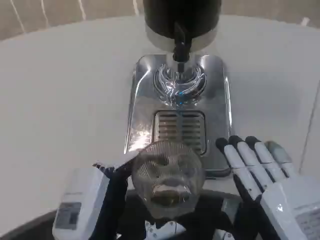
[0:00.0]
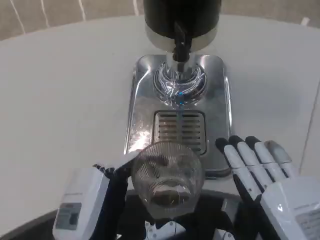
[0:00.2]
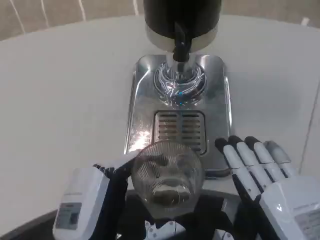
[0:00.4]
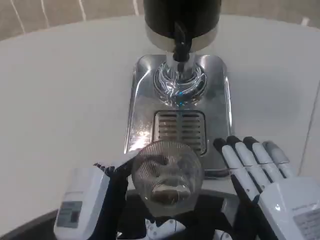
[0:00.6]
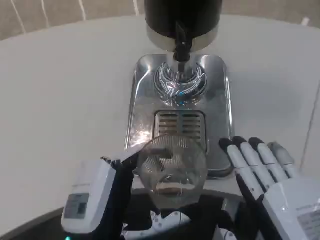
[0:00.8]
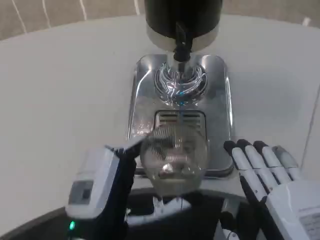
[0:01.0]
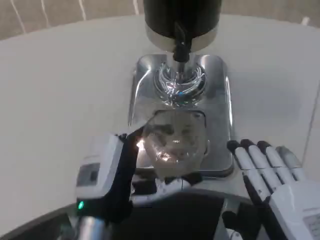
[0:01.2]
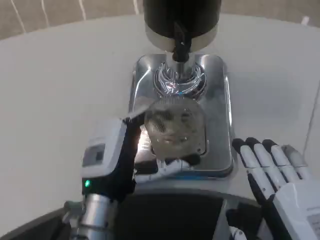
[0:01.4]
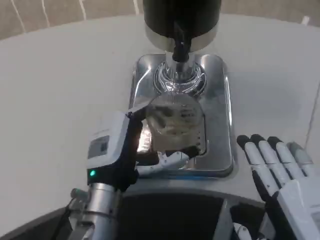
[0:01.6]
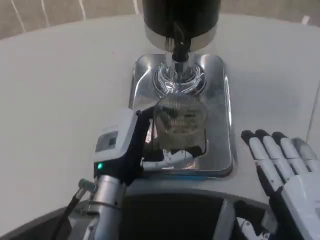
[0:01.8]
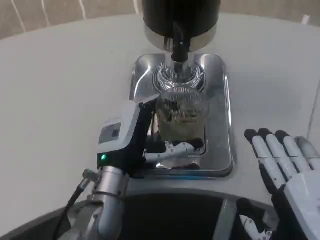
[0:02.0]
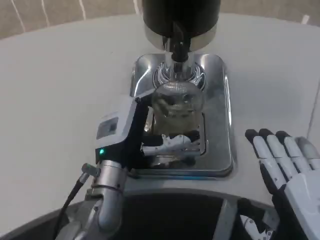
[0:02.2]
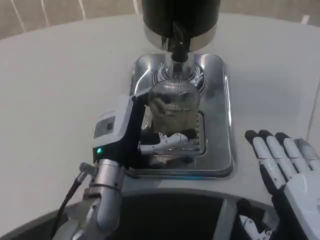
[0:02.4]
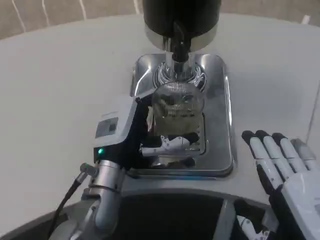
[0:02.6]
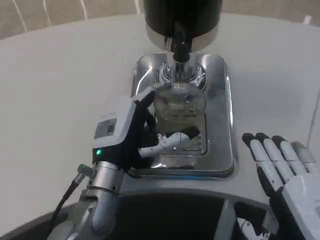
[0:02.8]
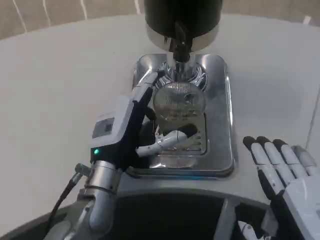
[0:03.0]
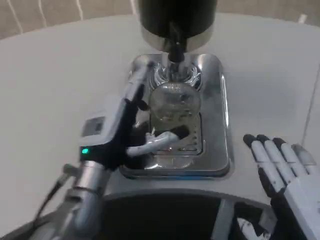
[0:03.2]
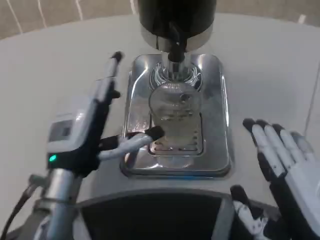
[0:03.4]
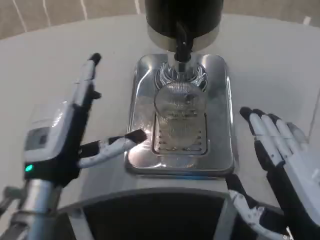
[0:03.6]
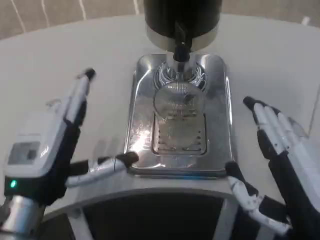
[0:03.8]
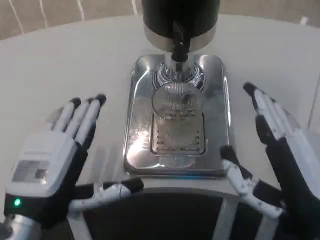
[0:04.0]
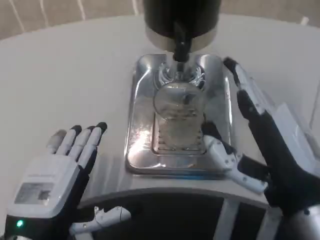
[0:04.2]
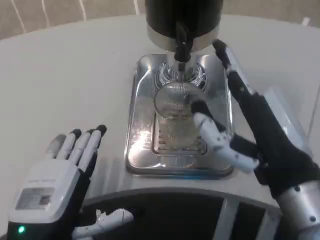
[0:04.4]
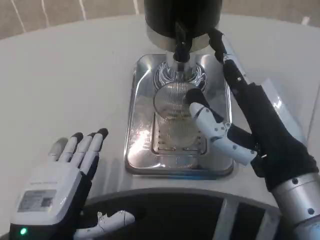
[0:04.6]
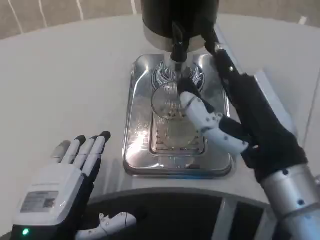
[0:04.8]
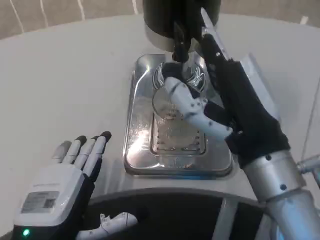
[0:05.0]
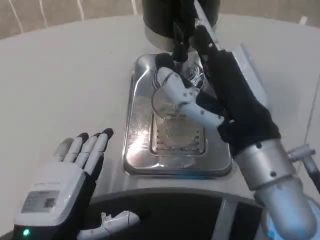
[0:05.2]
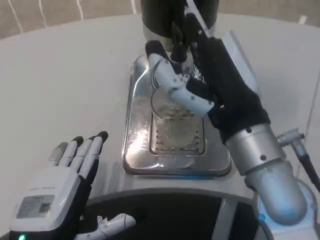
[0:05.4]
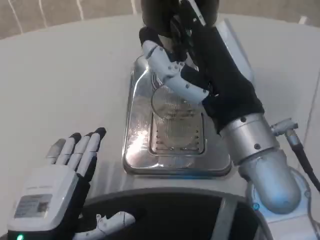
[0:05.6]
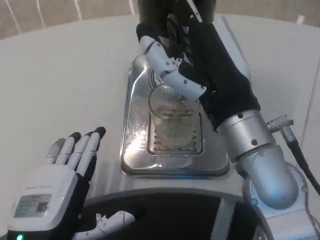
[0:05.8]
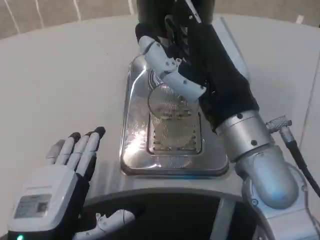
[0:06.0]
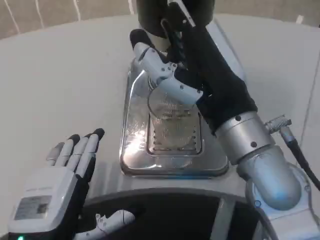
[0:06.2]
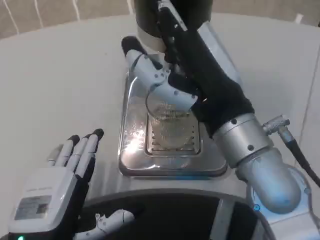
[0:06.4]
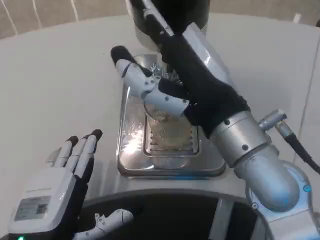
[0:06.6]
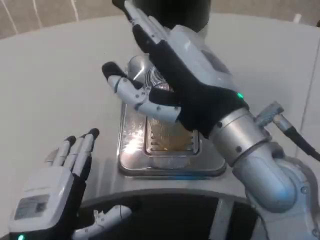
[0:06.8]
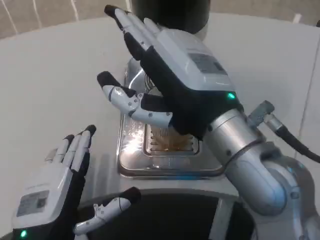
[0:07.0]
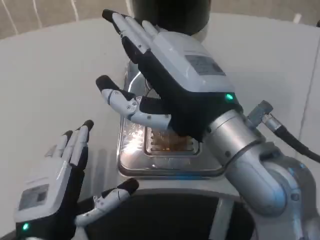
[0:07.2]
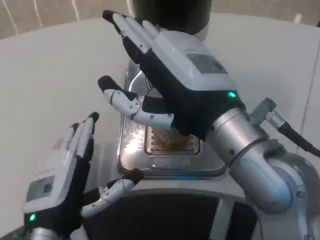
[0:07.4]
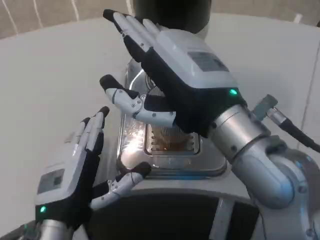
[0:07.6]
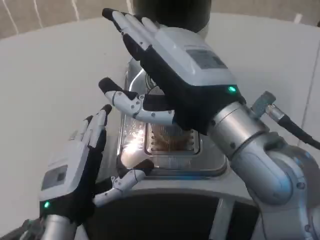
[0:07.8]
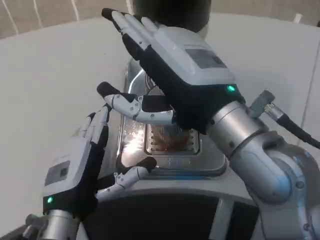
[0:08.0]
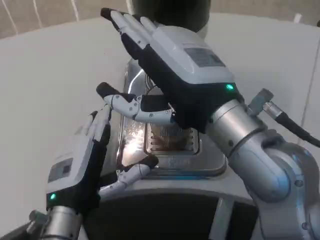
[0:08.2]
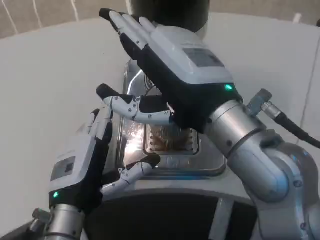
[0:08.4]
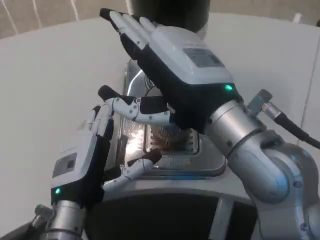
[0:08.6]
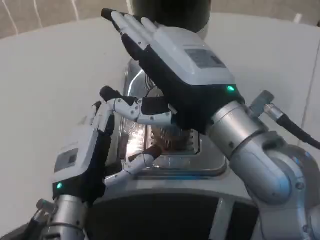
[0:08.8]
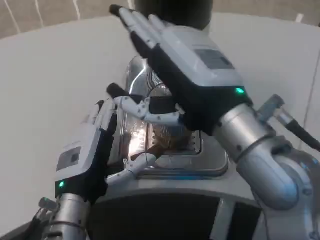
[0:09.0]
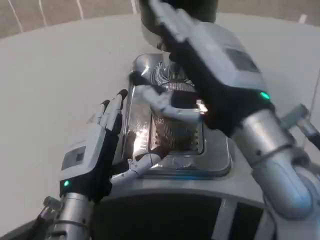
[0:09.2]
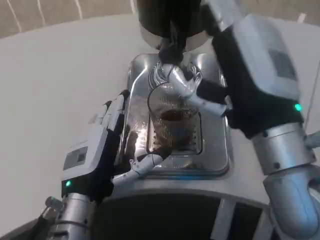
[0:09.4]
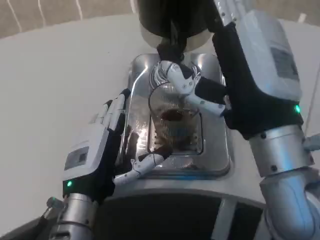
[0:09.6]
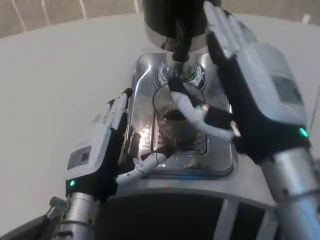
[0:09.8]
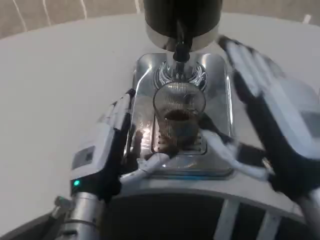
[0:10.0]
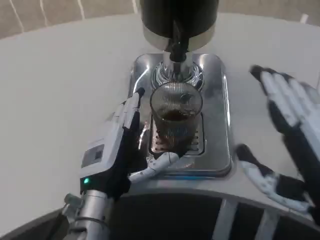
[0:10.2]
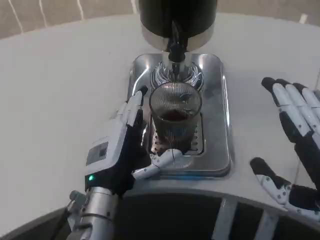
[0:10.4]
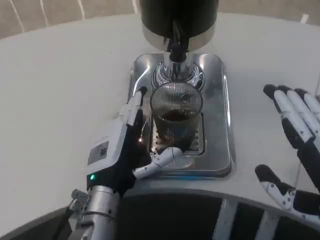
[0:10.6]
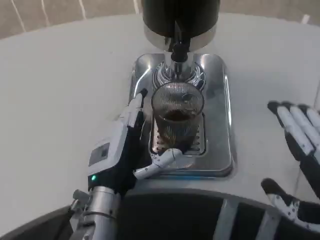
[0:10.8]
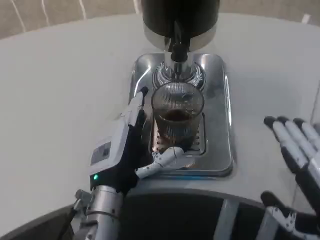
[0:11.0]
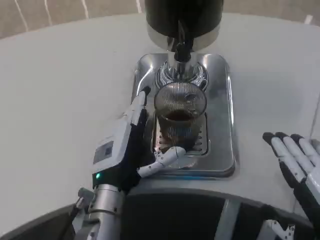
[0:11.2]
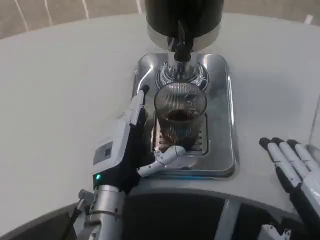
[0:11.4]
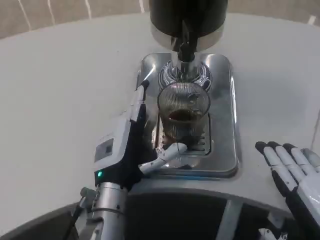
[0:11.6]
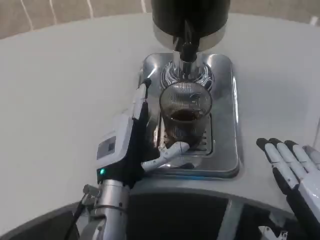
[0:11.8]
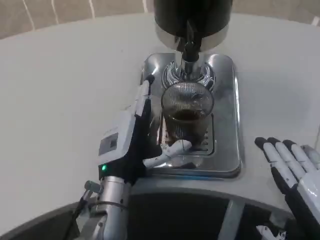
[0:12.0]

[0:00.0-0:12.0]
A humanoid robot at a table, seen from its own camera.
Task of the whole recording: Grasp the cup under the faucet to collect the drink, then remove the cup.
0:00.0 to 0:01.6: The left hand moves forward, approximately 10 cm.
0:01.6 to 0:03.0: The hands move only a little.
0:03.0 to 0:04.4: The left hand heads backward and to the left, covering about 15 cm. The right hand goes roughly 10 cm forward and upward.
0:04.4 to 0:06.0: The right hand is displaced to the left and forward by roughly 5 cm.
0:06.0 to 0:07.6: The left hand goes approximately 5 cm forward.
0:09.0 to 0:10.4: The right hand heads to the right, backward and downward, covering about 15 cm.
0:10.4 to 0:12.0: The right hand goes approximately 5 cm downward.

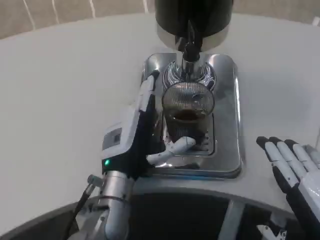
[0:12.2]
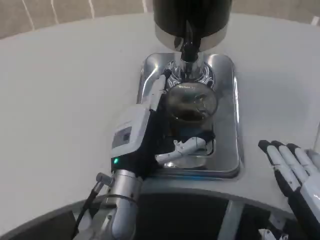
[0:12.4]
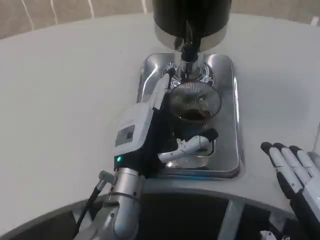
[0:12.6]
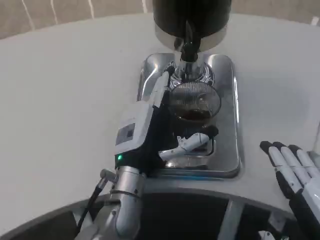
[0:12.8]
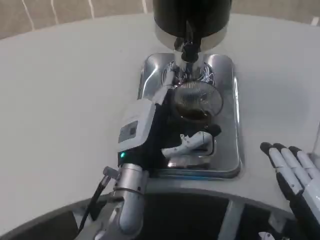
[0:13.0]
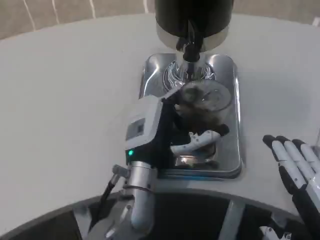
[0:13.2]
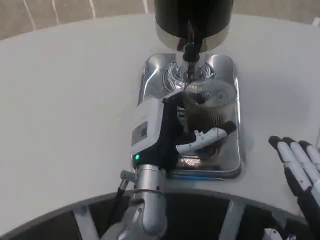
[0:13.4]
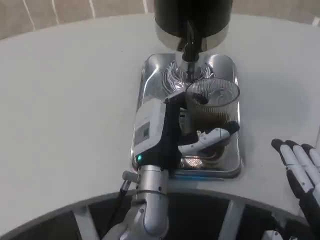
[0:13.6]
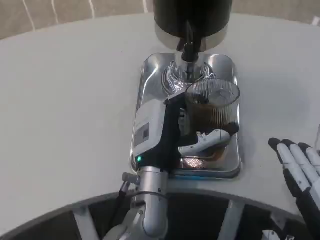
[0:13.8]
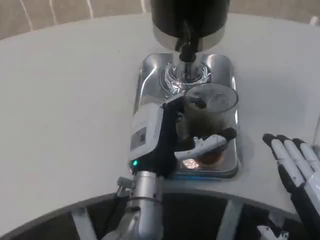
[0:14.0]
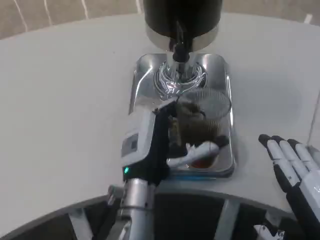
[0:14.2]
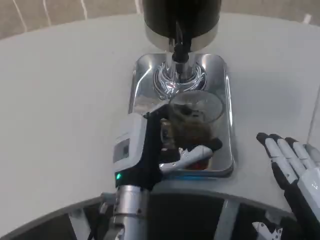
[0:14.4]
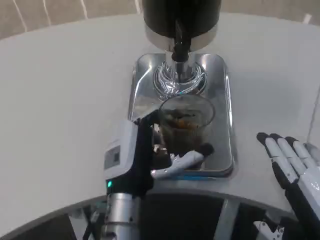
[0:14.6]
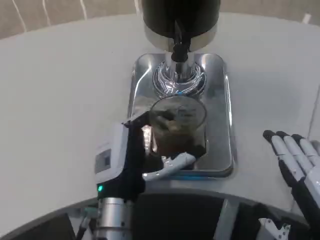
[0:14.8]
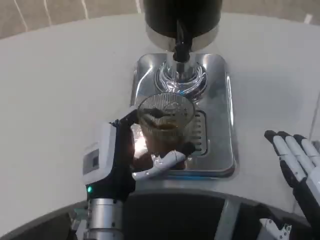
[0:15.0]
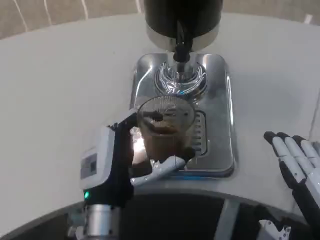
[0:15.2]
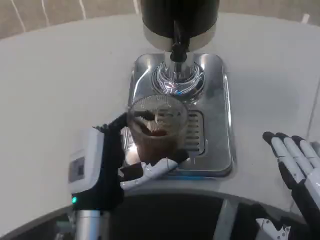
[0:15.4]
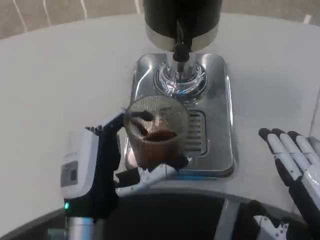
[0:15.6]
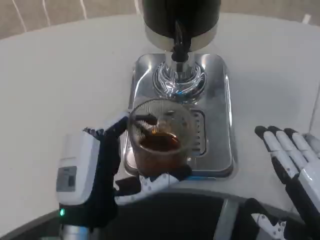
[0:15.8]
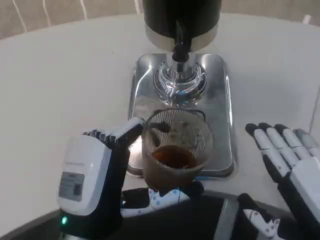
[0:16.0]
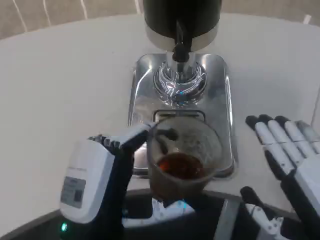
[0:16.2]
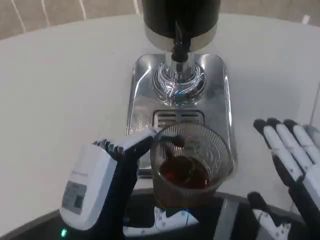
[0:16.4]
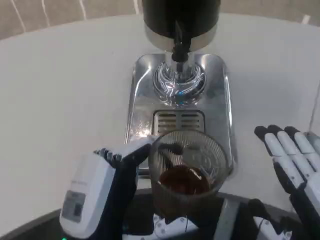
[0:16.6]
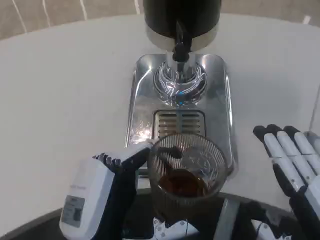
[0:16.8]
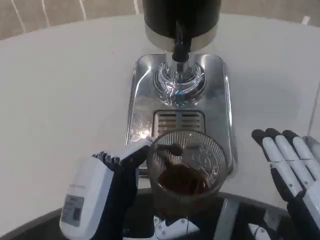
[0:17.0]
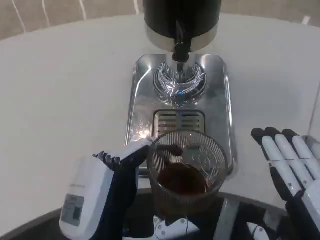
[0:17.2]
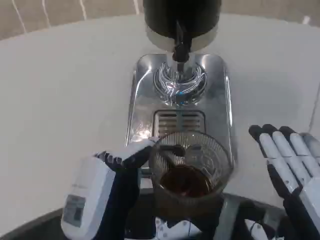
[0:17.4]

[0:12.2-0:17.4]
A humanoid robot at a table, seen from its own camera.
Task of the whole recording: Grasp the cup under the faucet to collect the drink, then remove the cup.
0:14.0 to 0:15.6: The left hand moves backward and to the left, approximately 10 cm.
0:15.6 to 0:17.4: The left hand shifts some 5 cm backward.

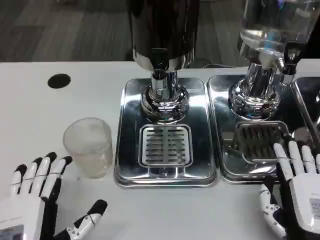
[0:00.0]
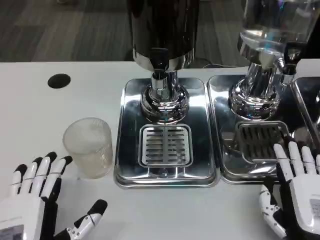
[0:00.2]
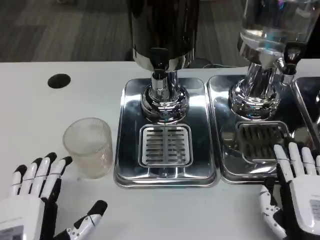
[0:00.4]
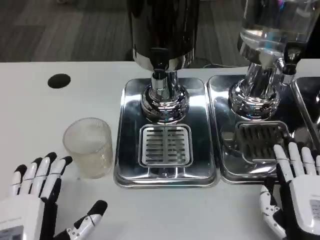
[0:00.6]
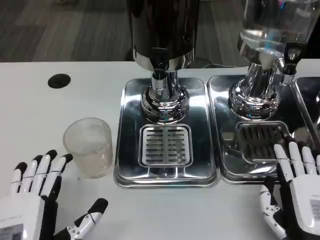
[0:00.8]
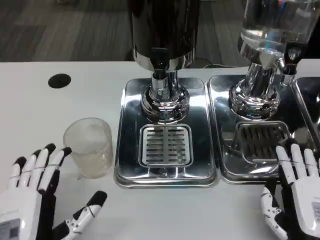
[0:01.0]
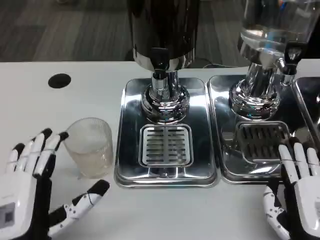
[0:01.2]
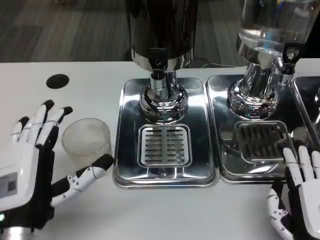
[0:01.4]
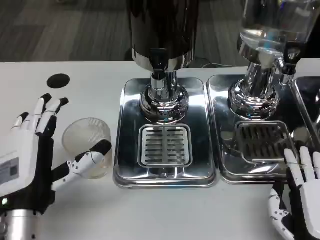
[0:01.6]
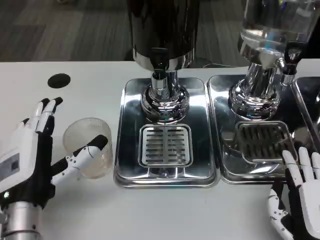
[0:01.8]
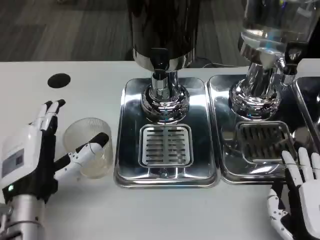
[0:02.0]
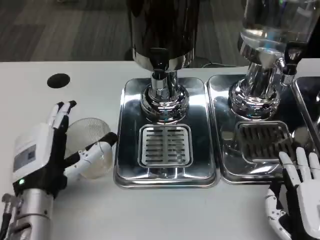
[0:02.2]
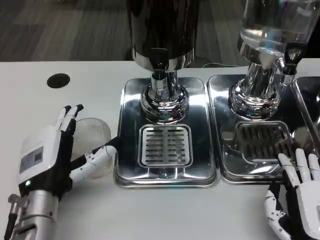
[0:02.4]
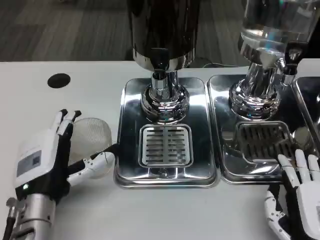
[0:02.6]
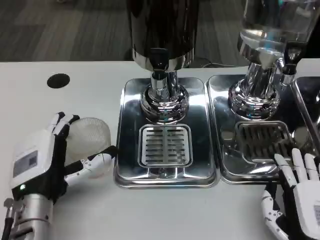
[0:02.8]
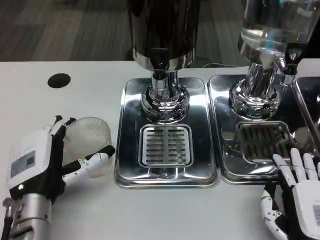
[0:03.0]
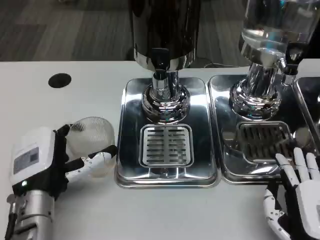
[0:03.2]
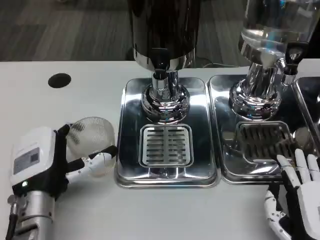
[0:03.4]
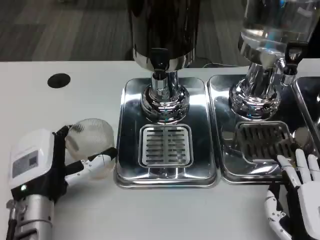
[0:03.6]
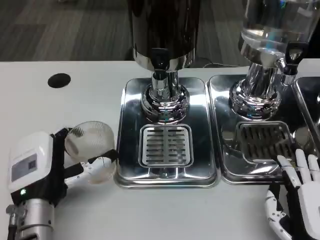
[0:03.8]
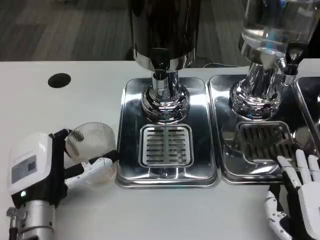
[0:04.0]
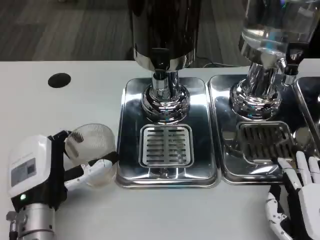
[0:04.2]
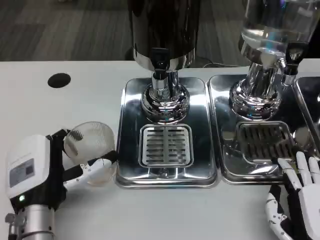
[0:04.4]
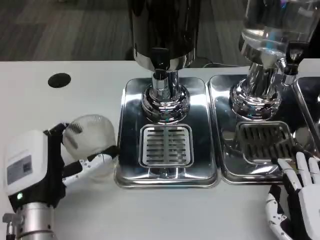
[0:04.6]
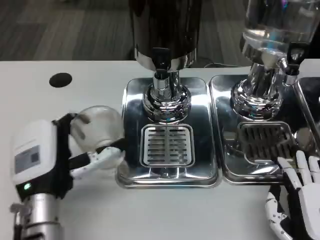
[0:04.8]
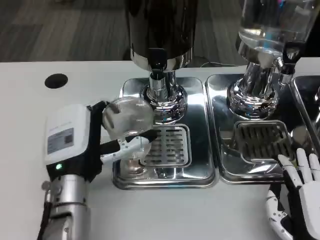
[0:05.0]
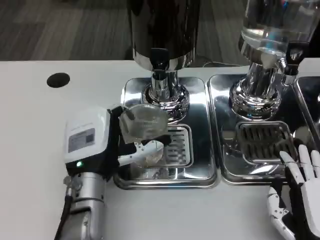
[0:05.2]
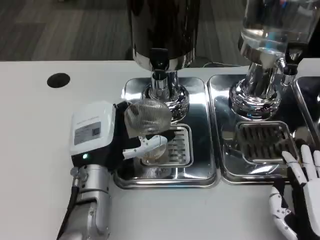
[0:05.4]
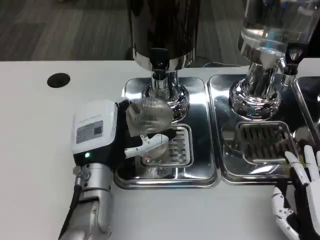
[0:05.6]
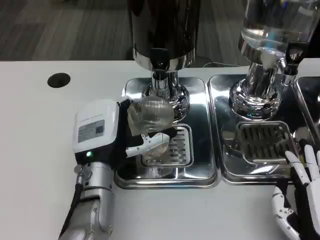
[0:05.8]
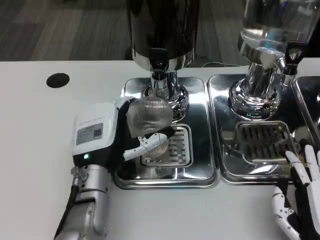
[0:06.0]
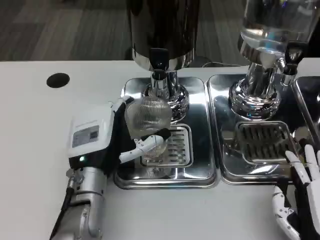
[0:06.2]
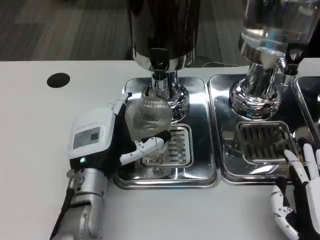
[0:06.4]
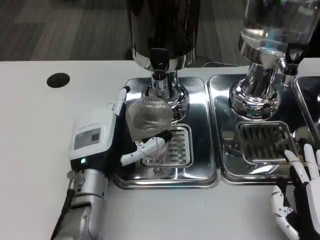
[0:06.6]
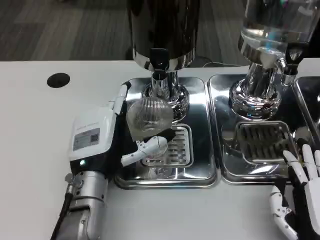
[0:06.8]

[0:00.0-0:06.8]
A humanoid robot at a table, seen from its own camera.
Task of the whole recording: Grasp the cup under the faucet to collect the drink, then remove the cup.
0:00.0 to 0:01.4: The left hand heads forward, covering approximately 5 cm.
0:01.4 to 0:04.0: The hands move only a little.
0:04.0 to 0:05.4: The left hand shifts approximately 5 cm to the right.
0:05.4 to 0:06.8: The two hands keep their place.
